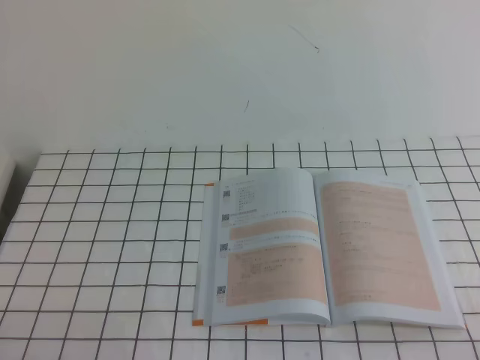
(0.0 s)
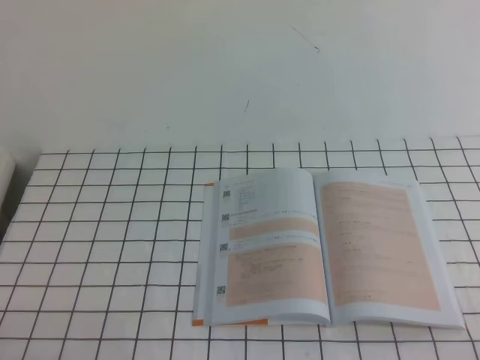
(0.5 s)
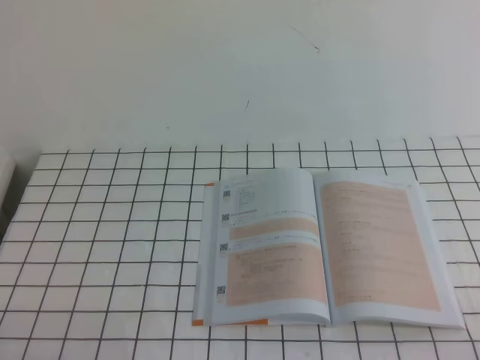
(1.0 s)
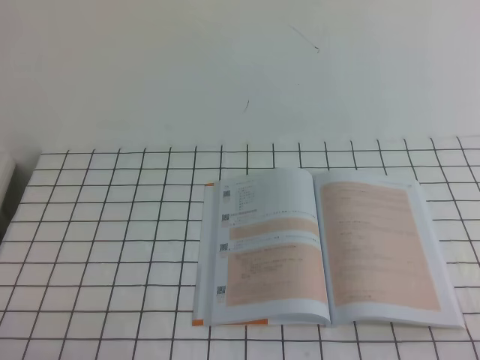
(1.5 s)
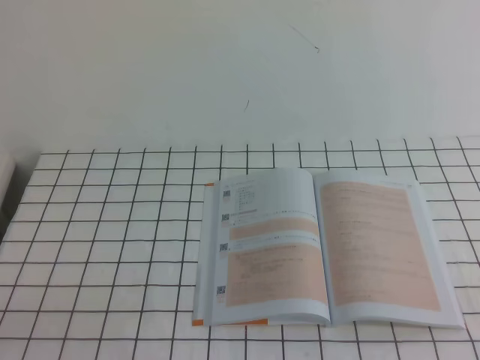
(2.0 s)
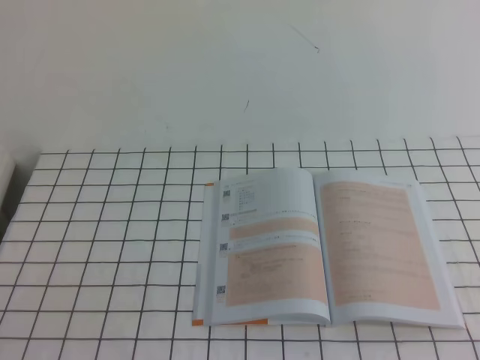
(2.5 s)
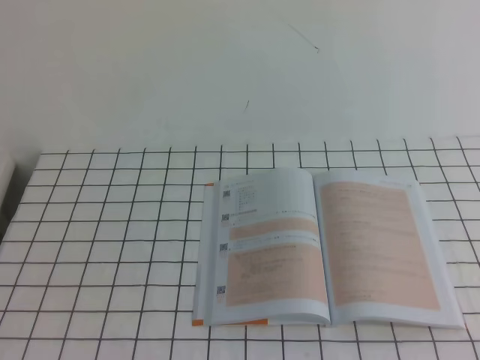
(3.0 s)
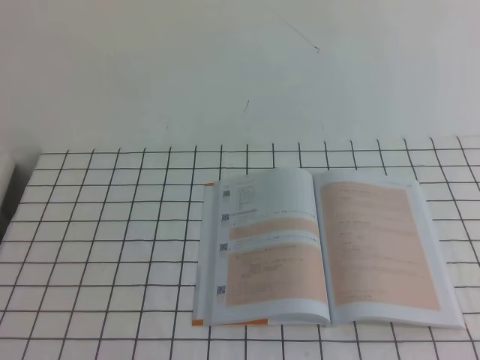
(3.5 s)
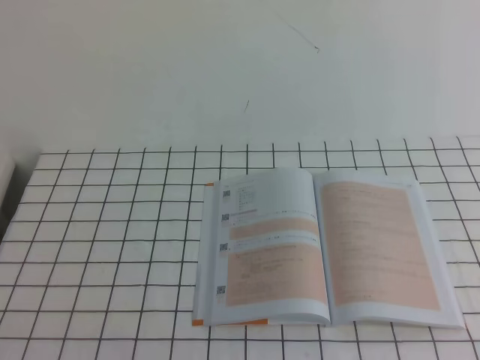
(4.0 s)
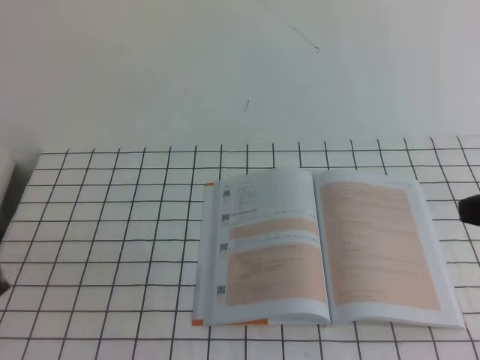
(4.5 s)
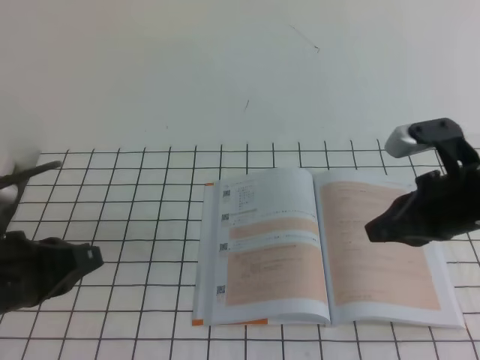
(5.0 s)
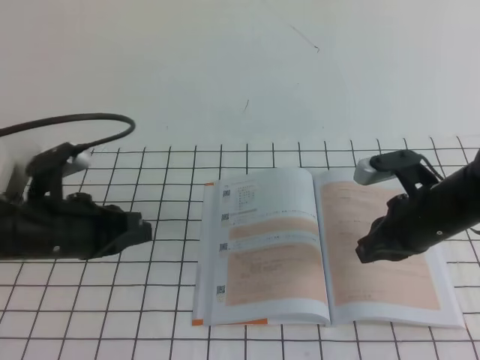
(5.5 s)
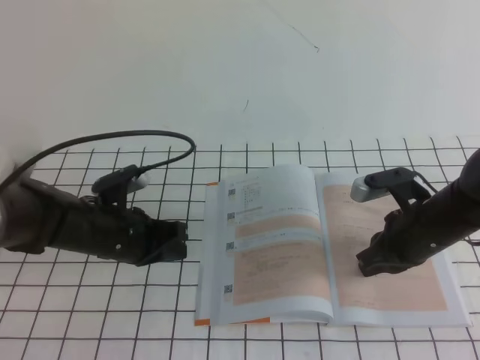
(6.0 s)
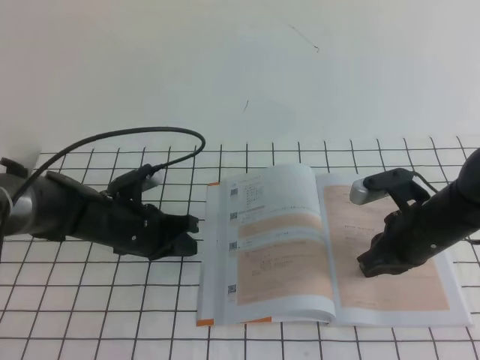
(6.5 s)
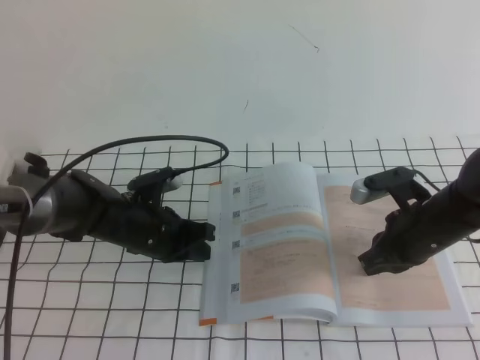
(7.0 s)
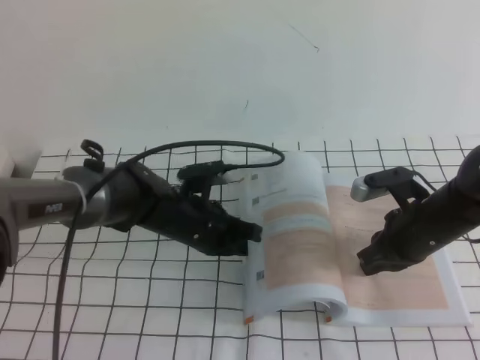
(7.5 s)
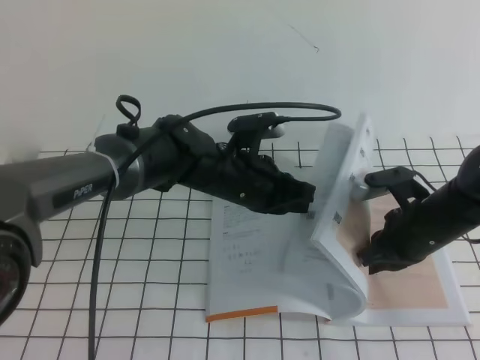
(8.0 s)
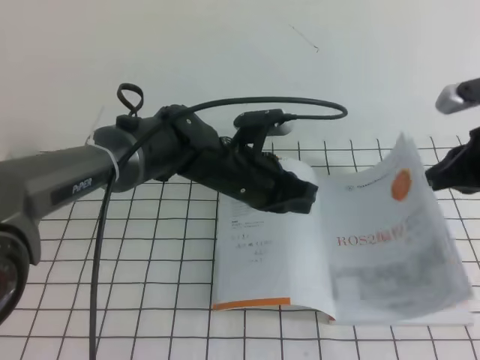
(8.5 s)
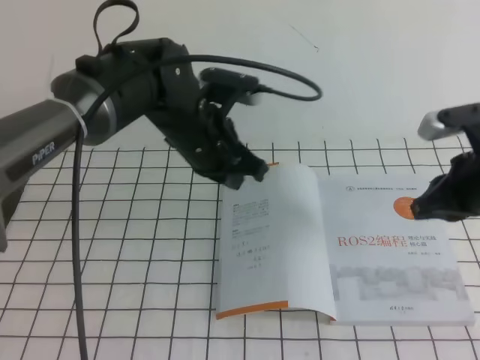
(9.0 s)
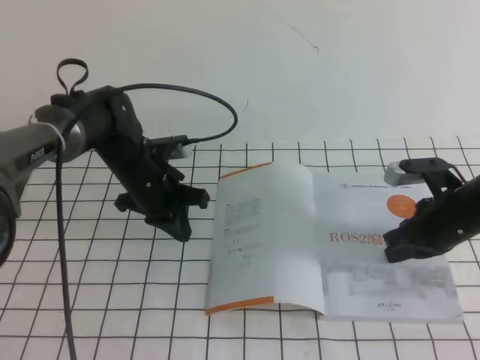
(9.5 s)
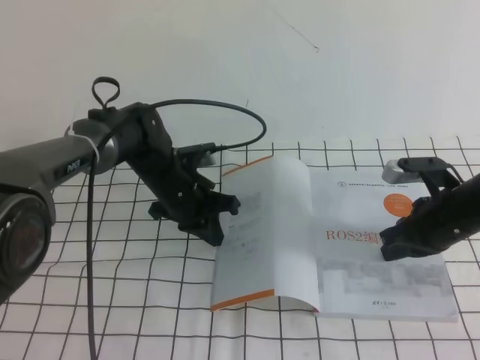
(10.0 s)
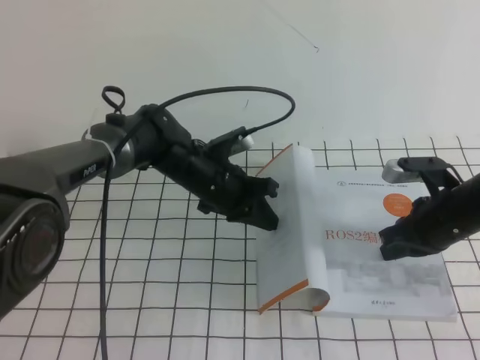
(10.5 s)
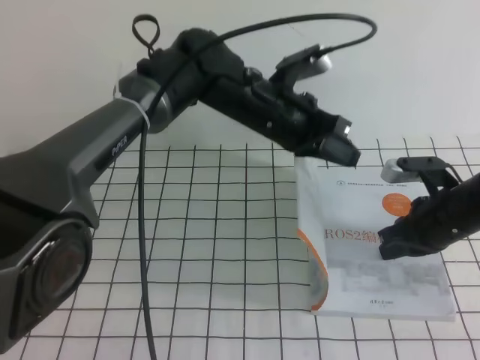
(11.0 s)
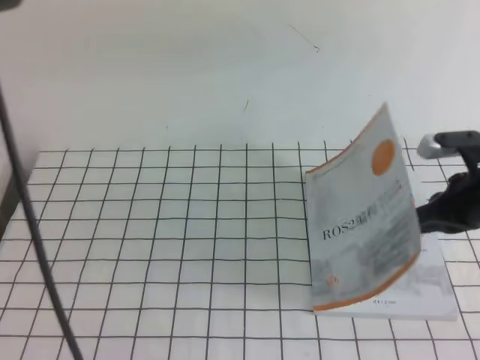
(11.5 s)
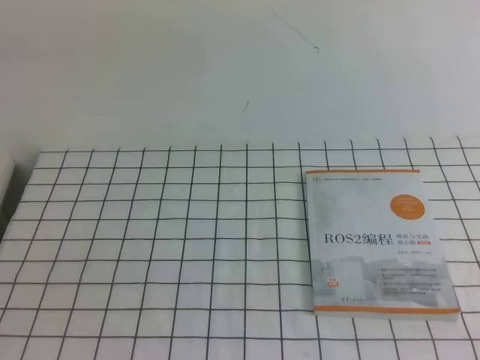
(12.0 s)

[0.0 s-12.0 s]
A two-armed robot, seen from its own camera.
Task of the whole recording: on the white tablecloth, hold the book with one hand and close it with the other.
4.0 to 6.0 s: The left gripper travels forward and downward by some 30 cm. The right gripper is displaced downward, forward and to the left by about 30 cm.
6.0 to 8.0 s: The left gripper moves to the right, about 15 cm.
8.0 to 10.0 s: The right gripper moves about 10 cm upward and comes back. Meanwhile the left gripper heads to the left and forward, covering roughly 10 cm.
10.0 to 12.0 s: The right gripper shifts roughly 30 cm upward and backward. The left gripper heads upward and backward, covering approximately 50 cm.

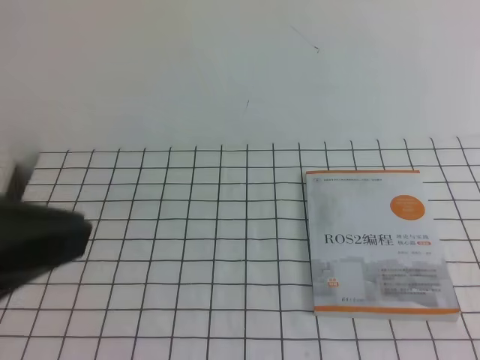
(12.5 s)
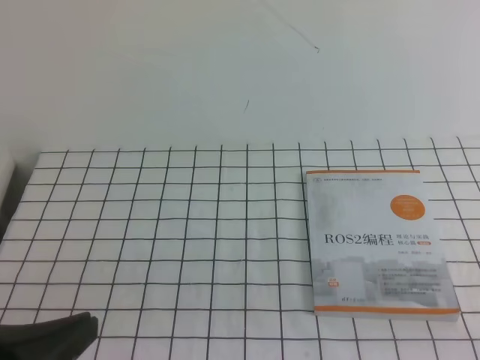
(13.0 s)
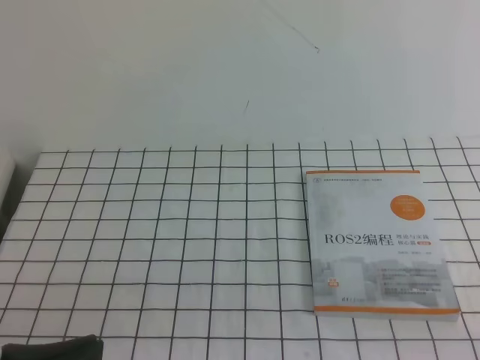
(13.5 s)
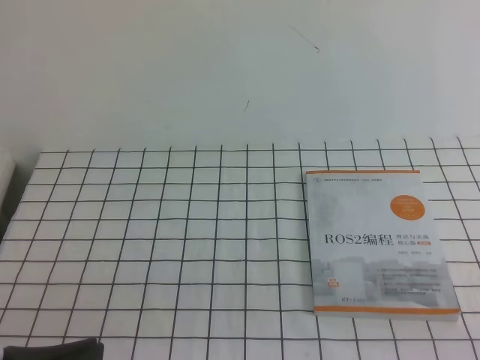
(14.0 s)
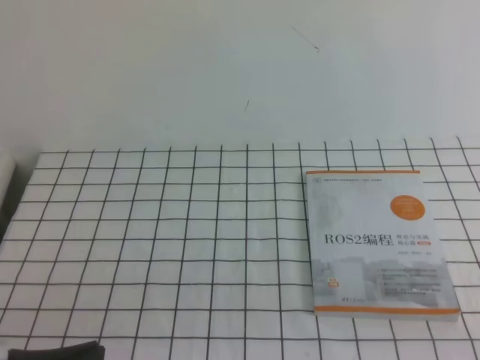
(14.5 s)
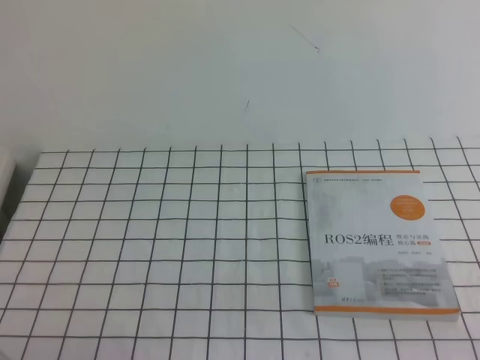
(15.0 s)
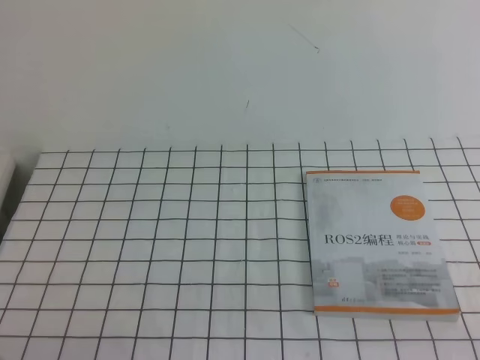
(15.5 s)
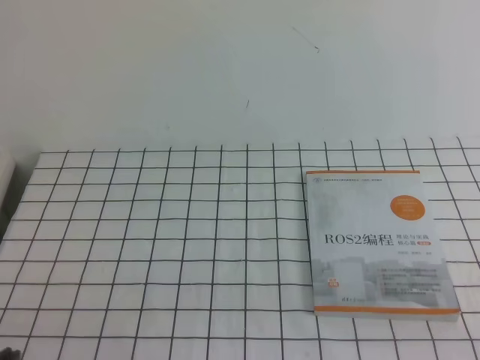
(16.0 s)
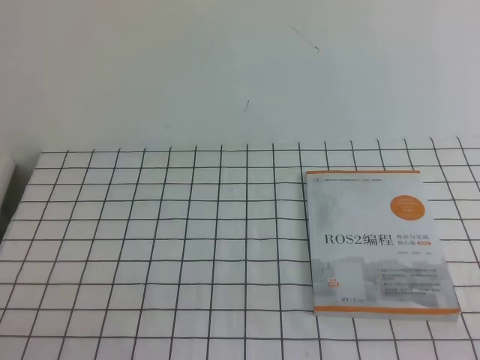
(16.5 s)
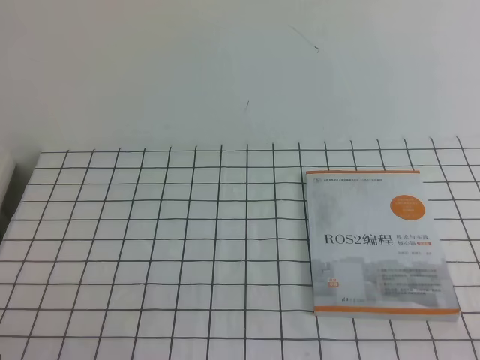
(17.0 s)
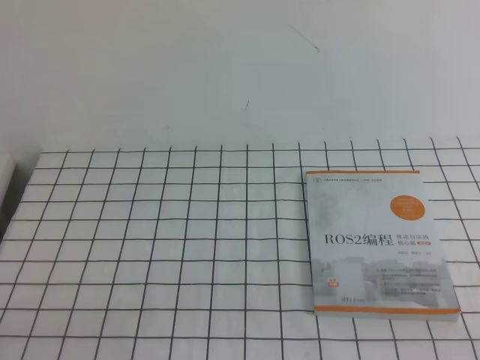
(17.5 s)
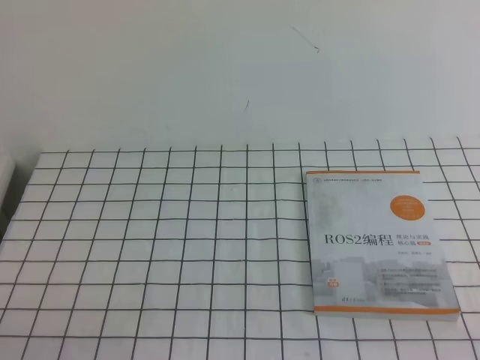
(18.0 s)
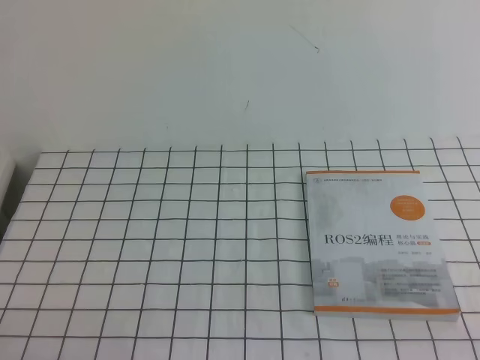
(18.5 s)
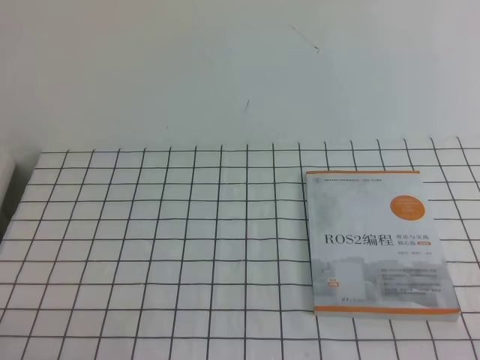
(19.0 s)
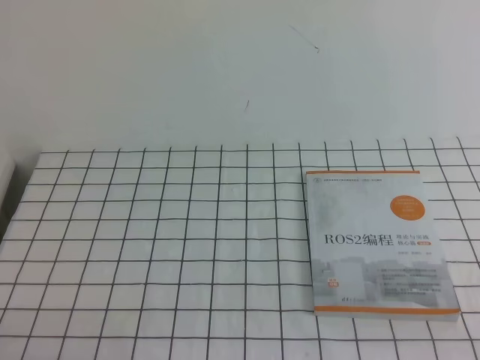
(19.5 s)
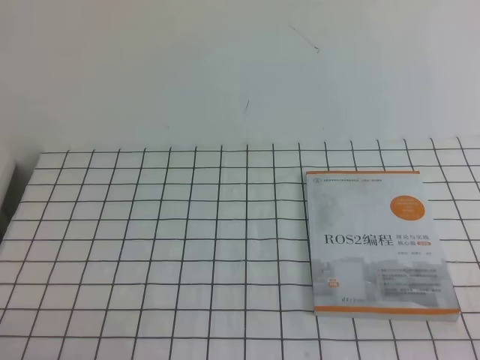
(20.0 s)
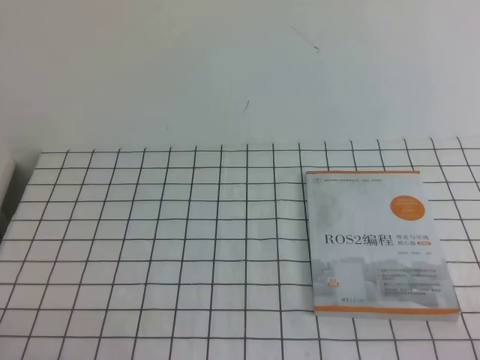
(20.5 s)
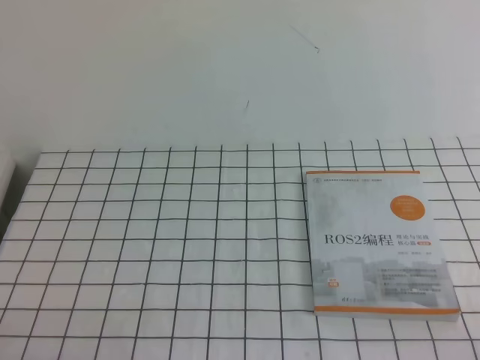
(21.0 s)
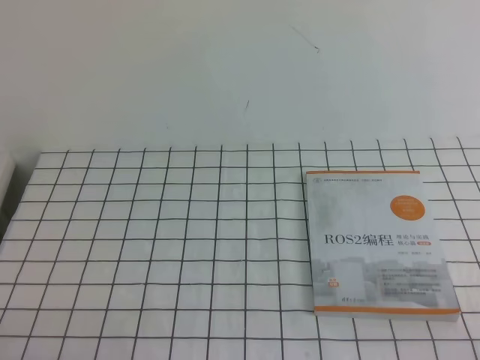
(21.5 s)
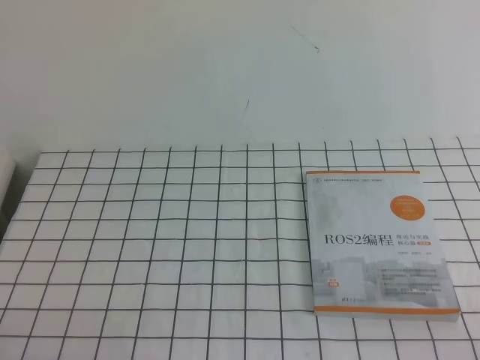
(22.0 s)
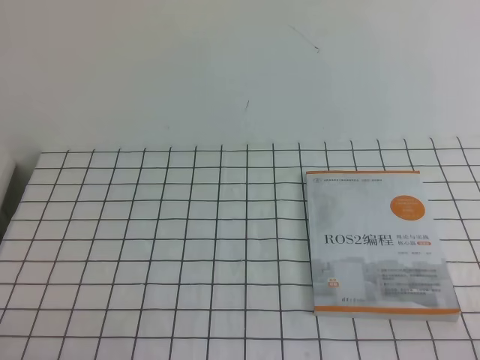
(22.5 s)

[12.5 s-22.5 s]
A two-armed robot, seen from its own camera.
Task of the whole recording: on the white tablecloth, hold the book with one hand and close it with the other.
Step, 12.5 to 22.5 s: Close the open book.
12.5 to 14.5 s: The left gripper goes roughly 20 cm downward.
14.5 to 16.5 s: The left gripper shifts by some 5 cm.
20.5 to 22.5 s: Both grippers stay put.
